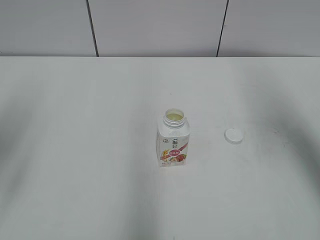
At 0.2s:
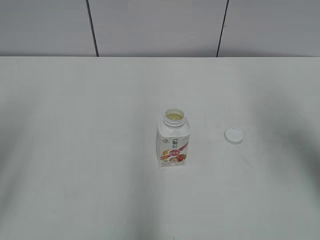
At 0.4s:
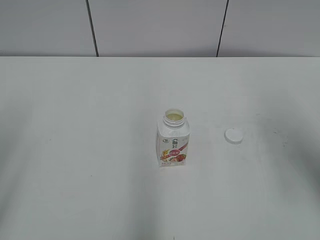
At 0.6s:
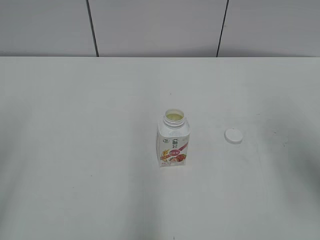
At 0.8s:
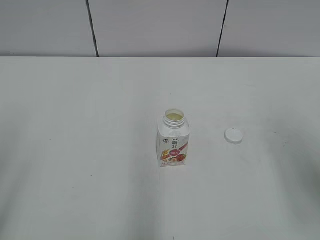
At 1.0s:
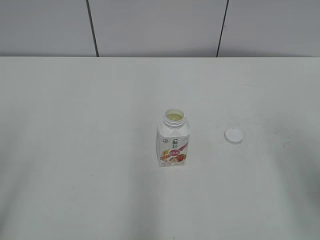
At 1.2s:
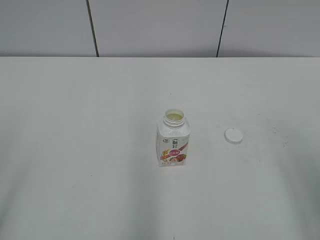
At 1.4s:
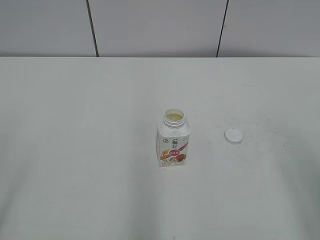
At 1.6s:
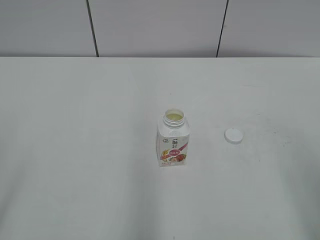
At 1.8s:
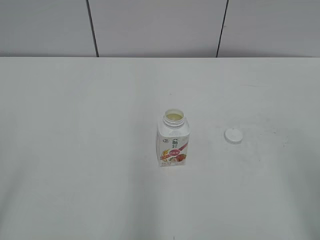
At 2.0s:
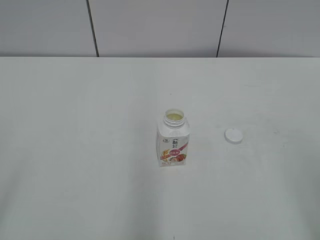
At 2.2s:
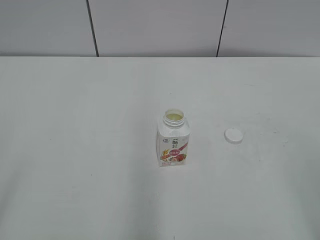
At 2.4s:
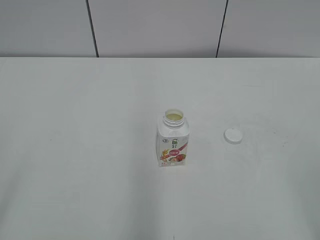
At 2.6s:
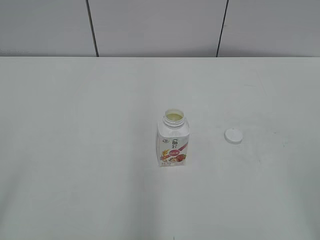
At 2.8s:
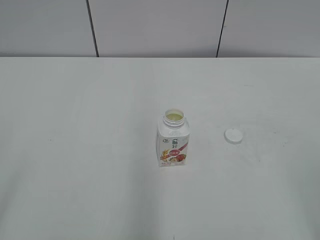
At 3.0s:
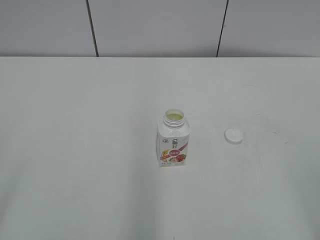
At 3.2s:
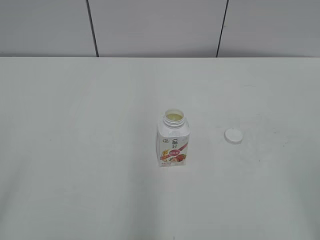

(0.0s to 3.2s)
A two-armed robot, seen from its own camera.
0.0s - 1.6s: The right gripper heads backward, covering roughly 20 cm.
